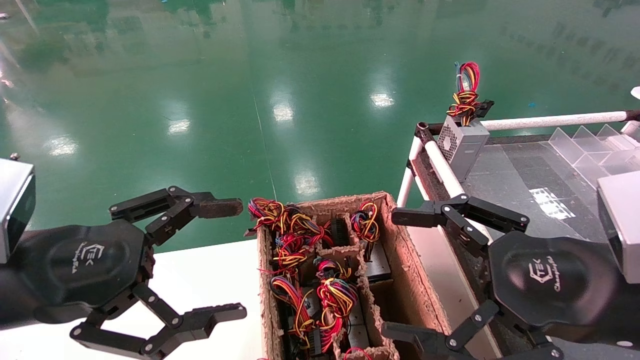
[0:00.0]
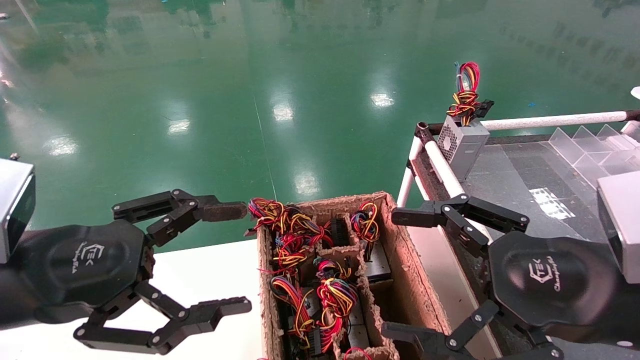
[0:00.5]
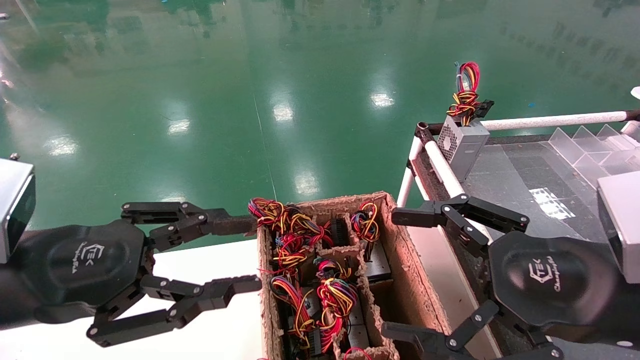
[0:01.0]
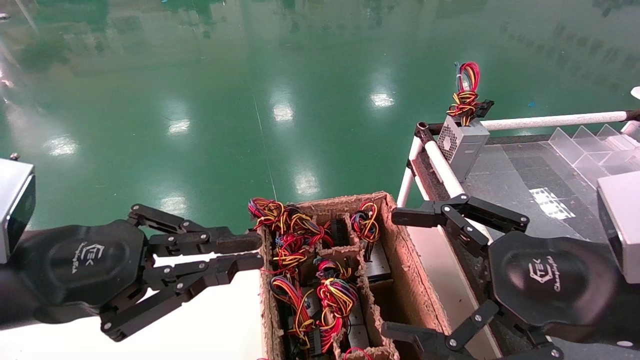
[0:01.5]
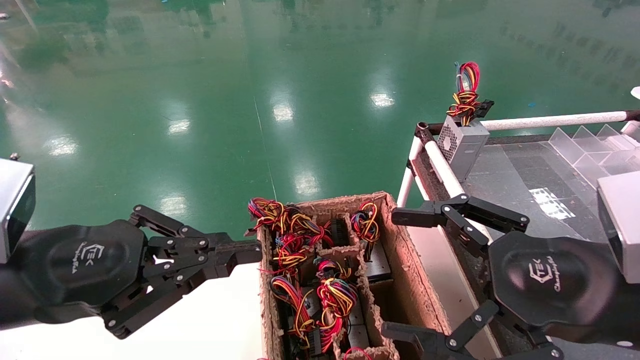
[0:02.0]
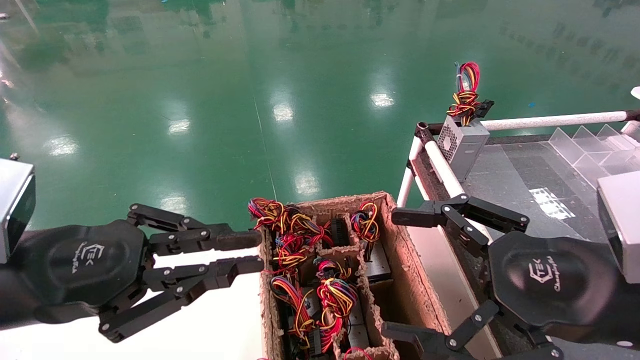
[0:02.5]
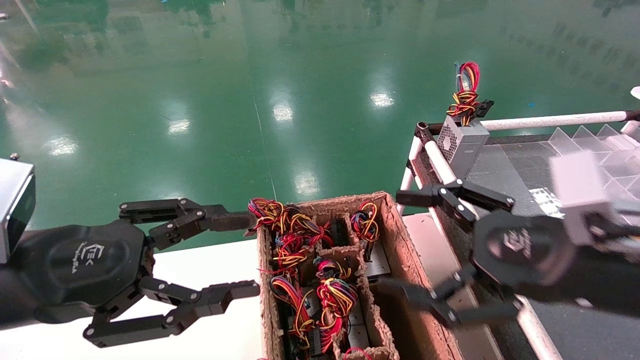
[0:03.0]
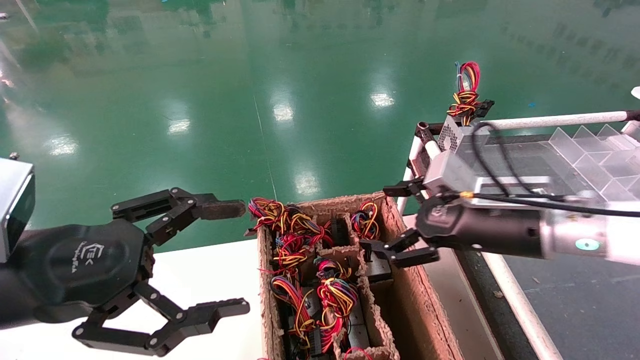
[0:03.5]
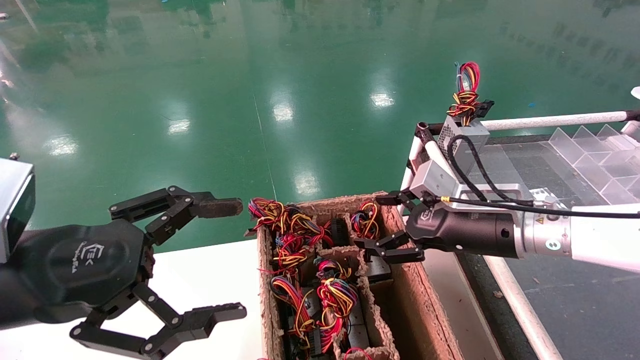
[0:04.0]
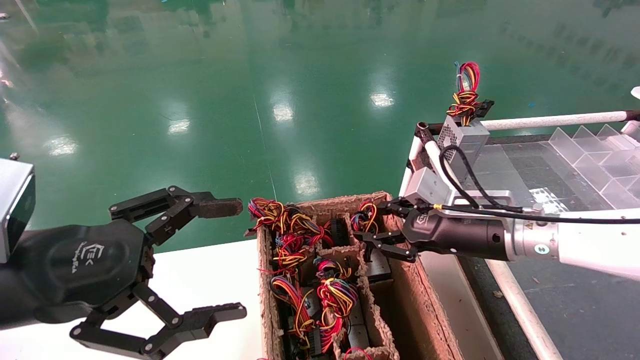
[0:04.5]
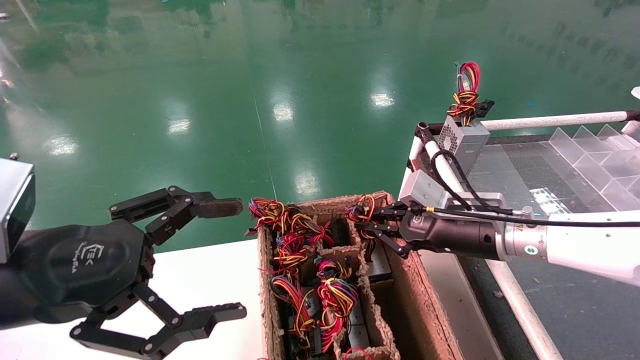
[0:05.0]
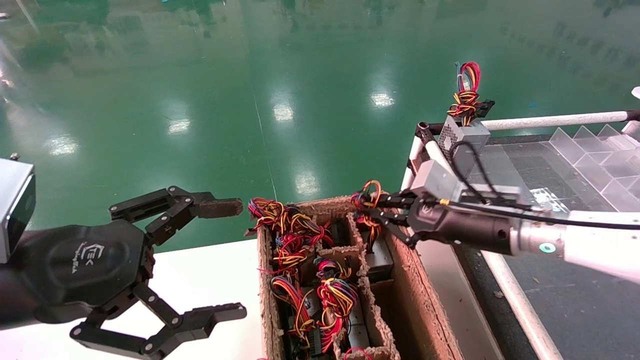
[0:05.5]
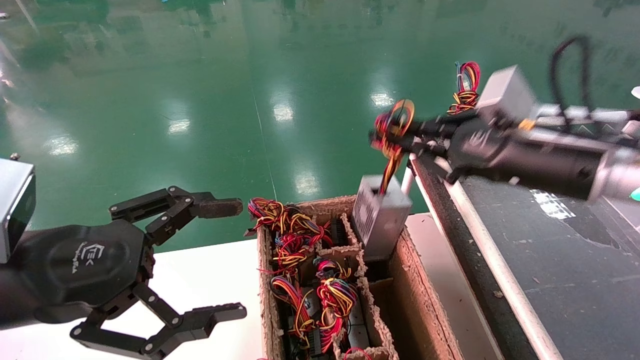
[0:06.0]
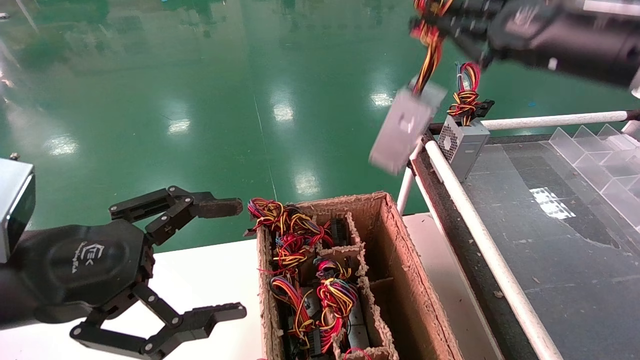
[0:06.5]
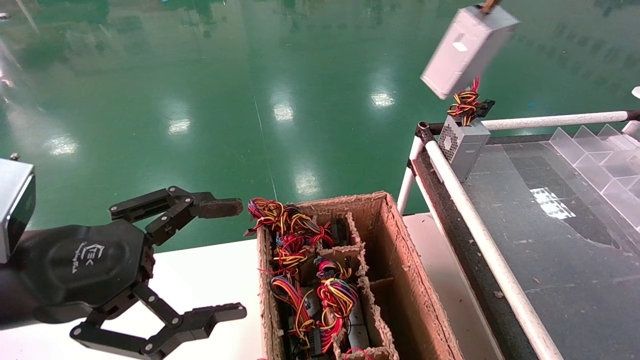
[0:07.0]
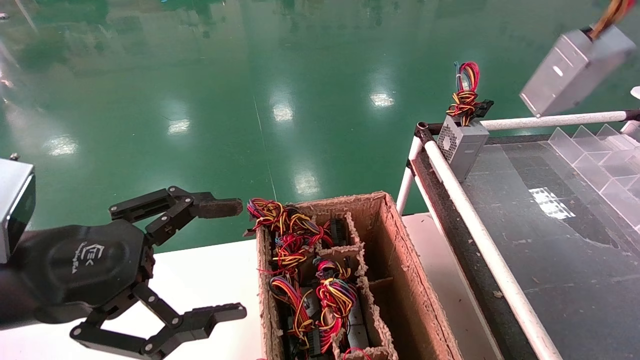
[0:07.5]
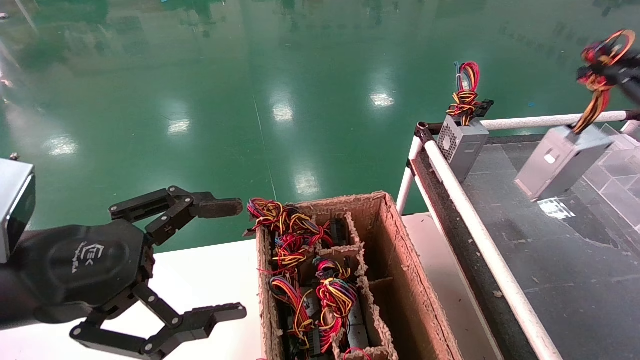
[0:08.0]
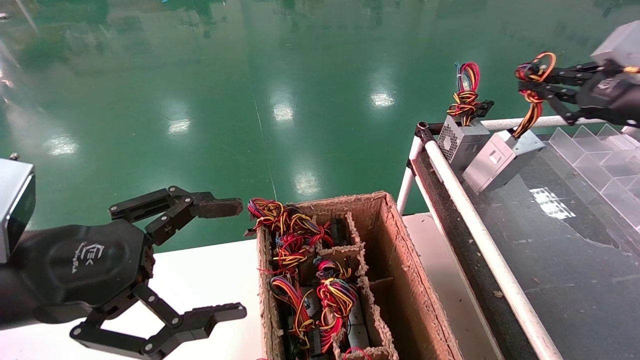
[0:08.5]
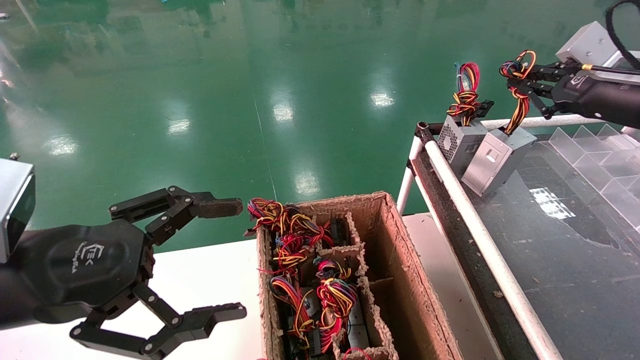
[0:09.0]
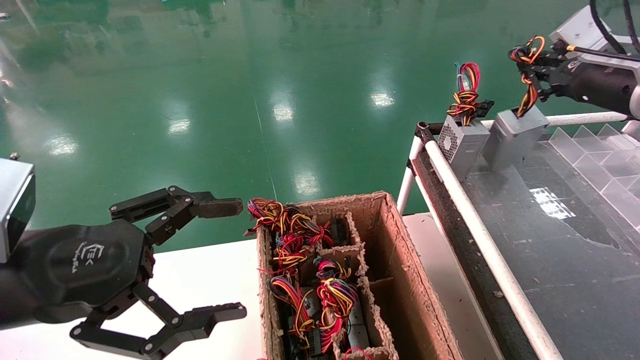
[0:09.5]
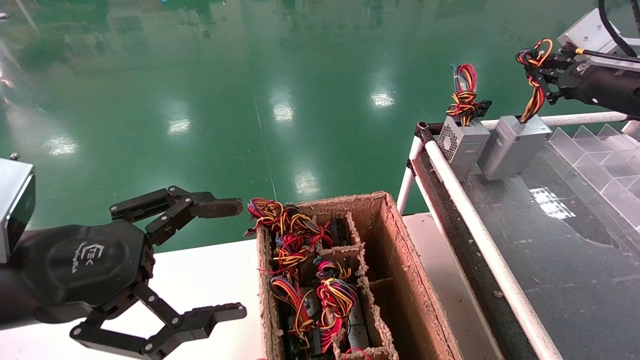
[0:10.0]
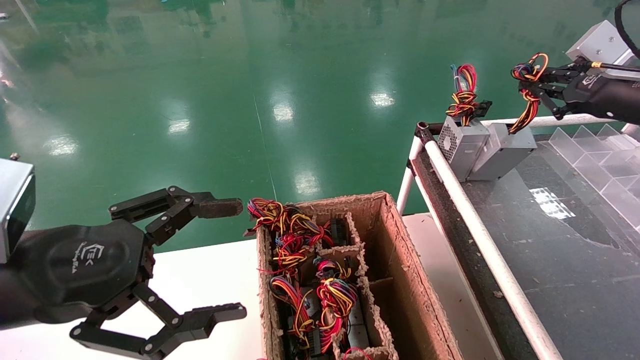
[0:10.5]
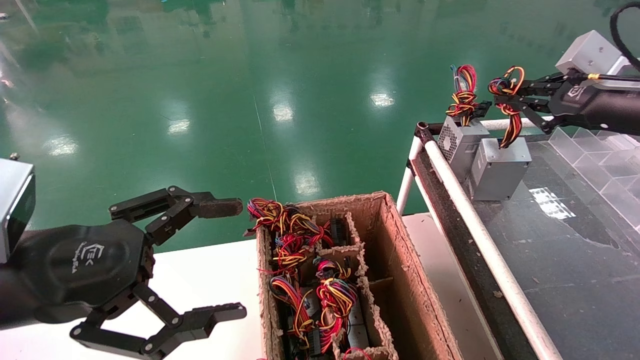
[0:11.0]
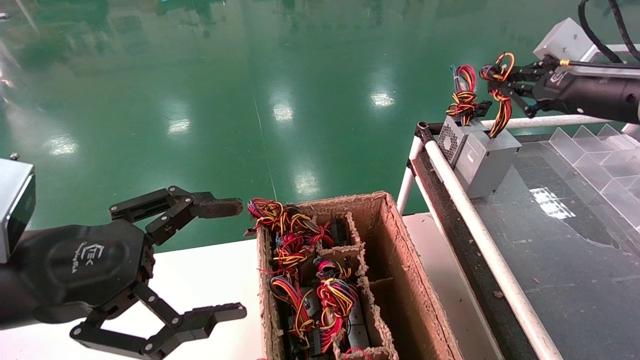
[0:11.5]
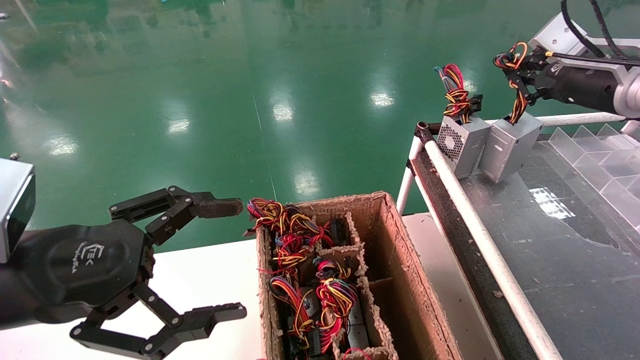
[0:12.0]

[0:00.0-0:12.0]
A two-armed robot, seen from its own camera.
Step, 0:02.0 to 0:05.0: Grab and lift the power supply from the large box.
0:00.0 to 0:02.0: The left gripper closes.
0:02.0 to 0:04.0: The right gripper shifts about 15 cm forward; the left gripper opens its fingers.
0:04.0 to 0:06.0: The right gripper travels upward by about 10 cm, and closes up.
0:06.0 to 0:08.0: The right gripper is displaced to the right by approximately 20 cm.
0:08.0 to 0:10.0: The right gripper goes roughly 10 cm forward and to the left.
0:10.0 to 0:12.0: There are only small adjustments of the grippers.

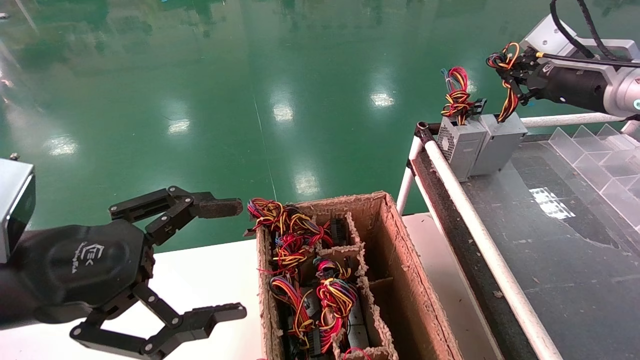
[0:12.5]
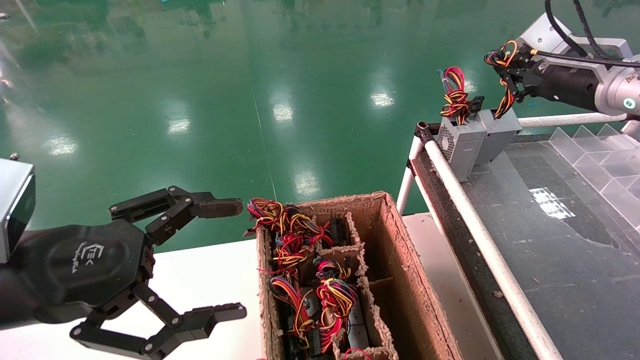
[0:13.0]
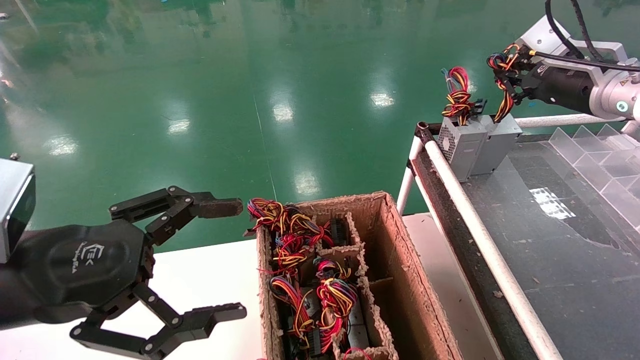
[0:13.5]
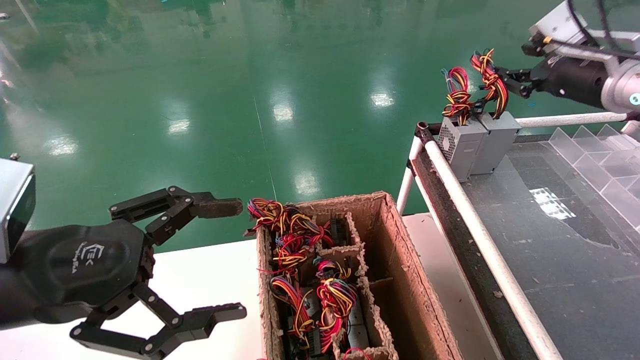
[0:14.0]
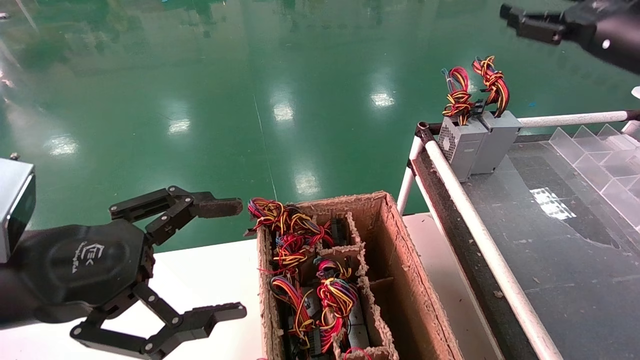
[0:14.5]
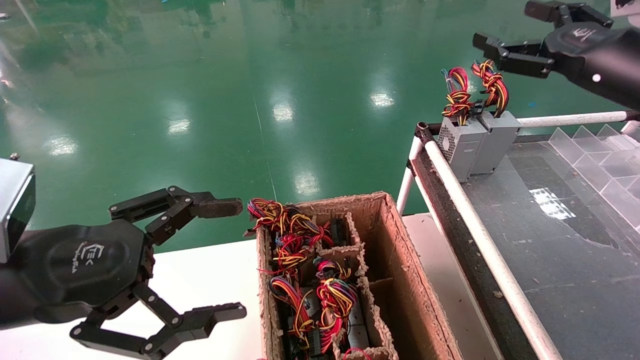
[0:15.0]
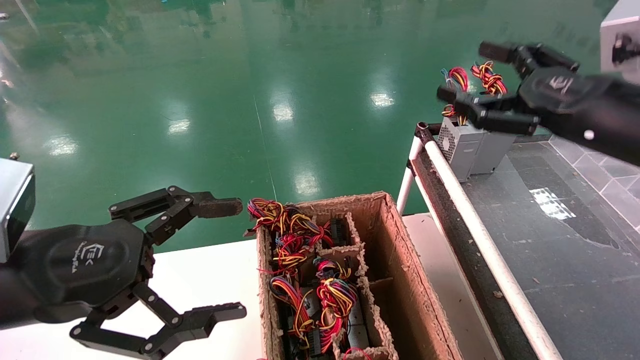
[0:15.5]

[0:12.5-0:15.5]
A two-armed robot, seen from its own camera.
0:12.5 to 0:14.0: There are only small adjustments of the grippers.
0:14.0 to 0:15.5: The right gripper heads backward and downward, covering about 15 cm, and opens.
